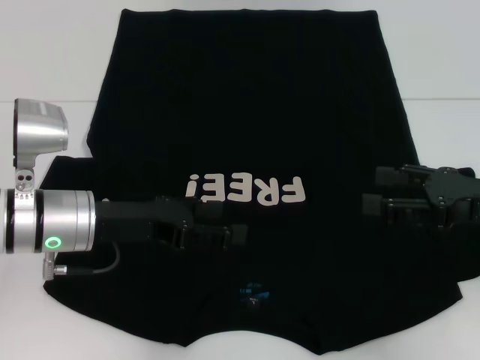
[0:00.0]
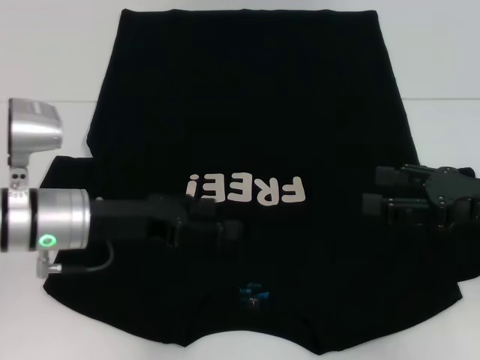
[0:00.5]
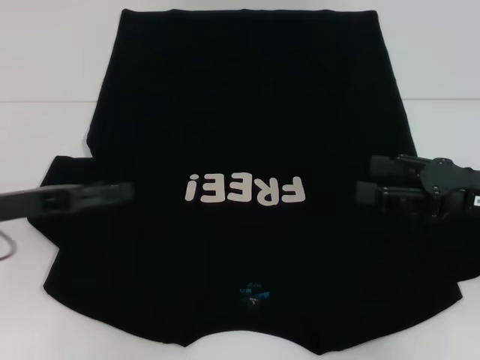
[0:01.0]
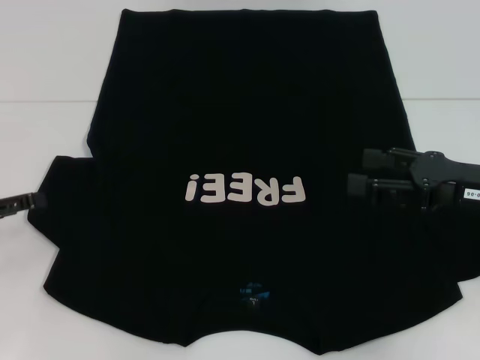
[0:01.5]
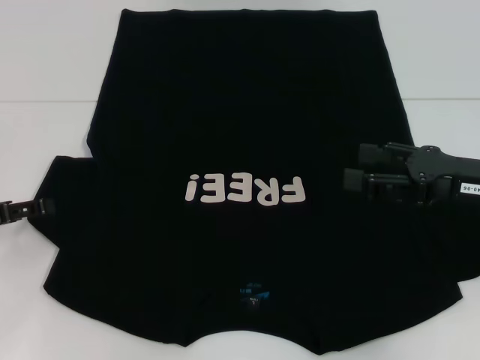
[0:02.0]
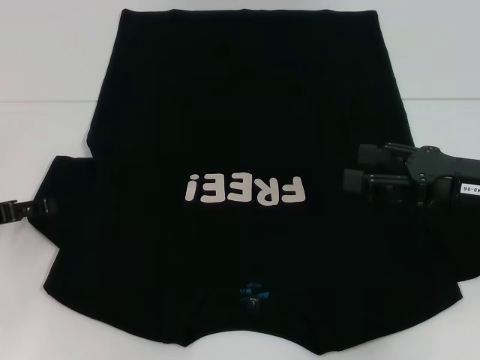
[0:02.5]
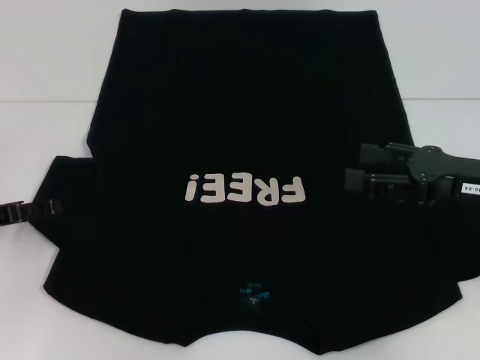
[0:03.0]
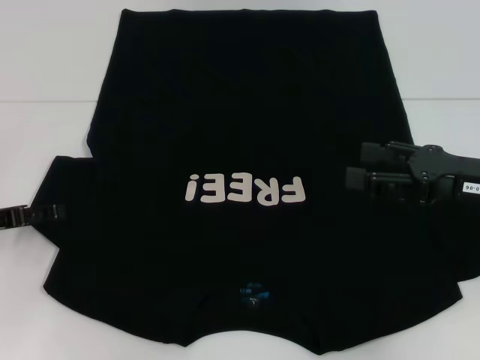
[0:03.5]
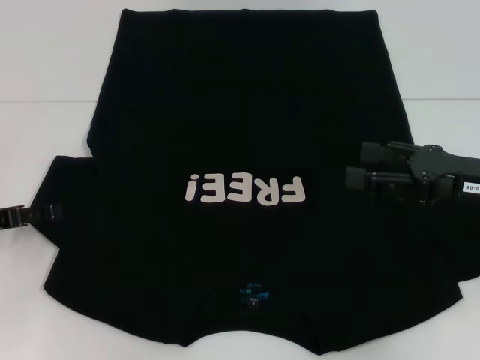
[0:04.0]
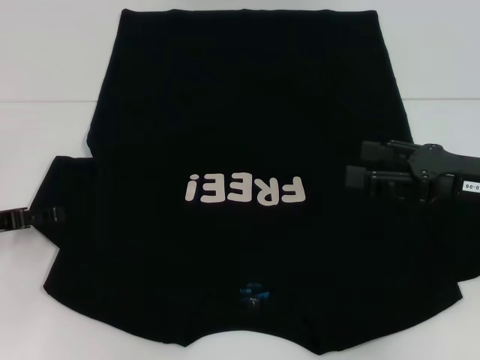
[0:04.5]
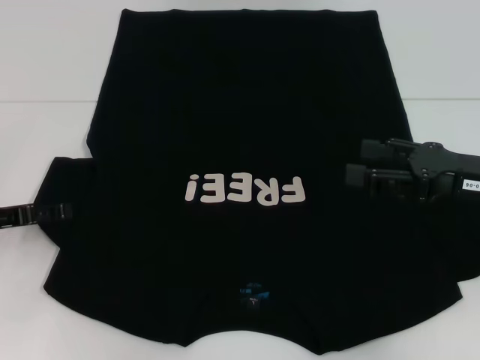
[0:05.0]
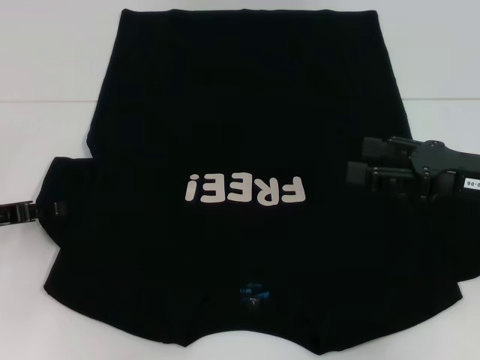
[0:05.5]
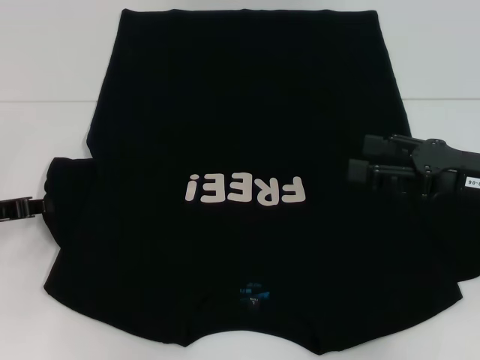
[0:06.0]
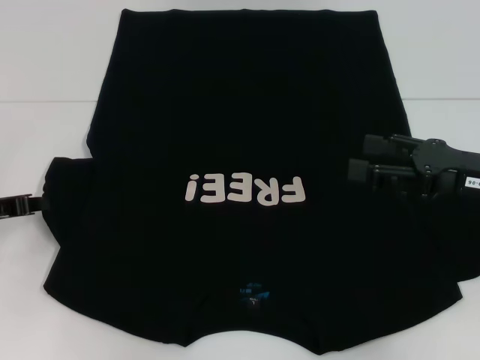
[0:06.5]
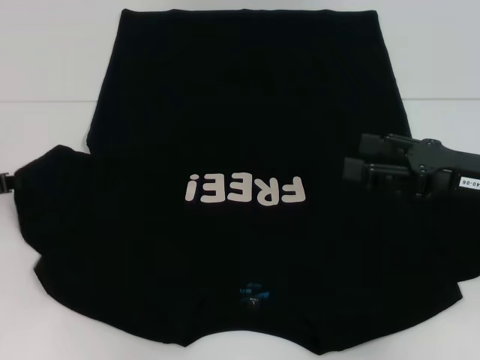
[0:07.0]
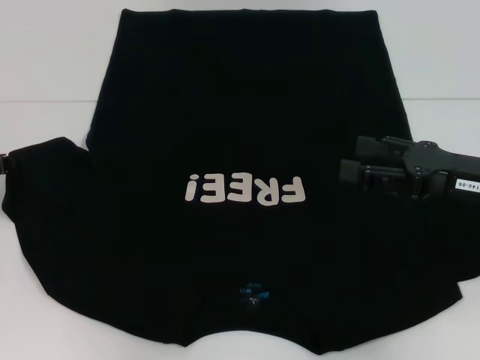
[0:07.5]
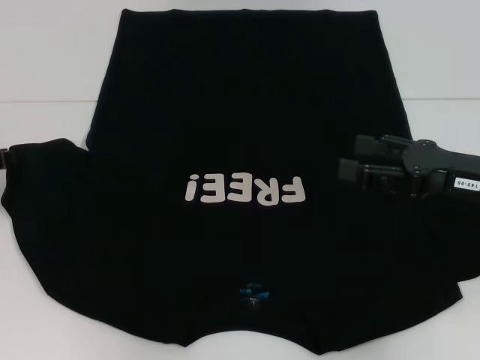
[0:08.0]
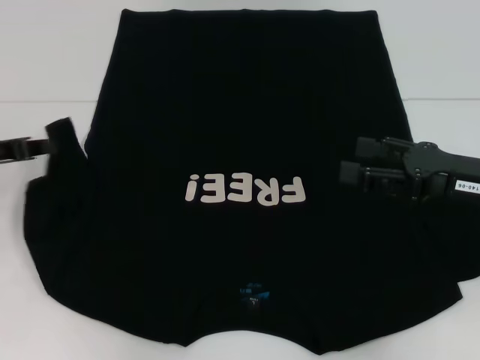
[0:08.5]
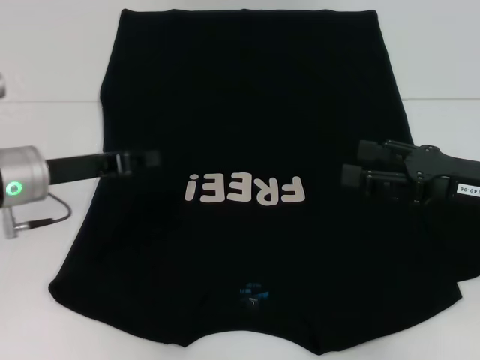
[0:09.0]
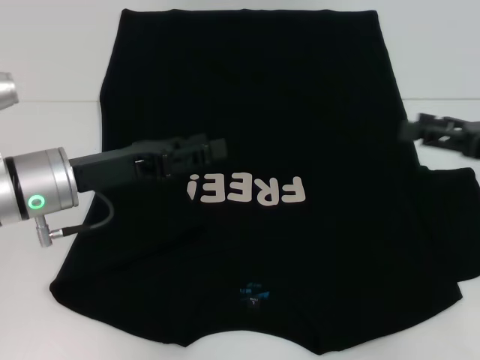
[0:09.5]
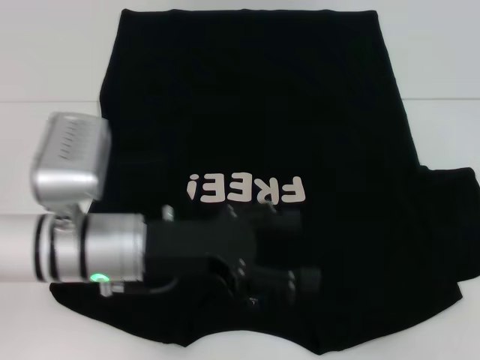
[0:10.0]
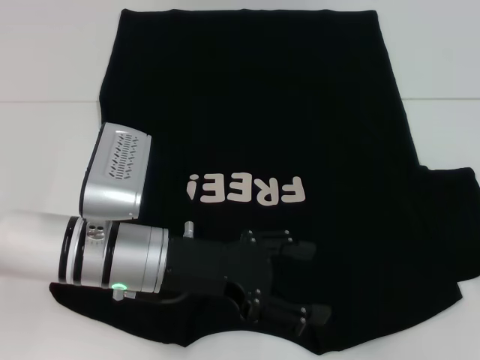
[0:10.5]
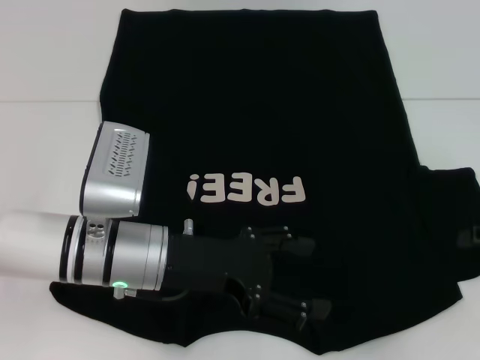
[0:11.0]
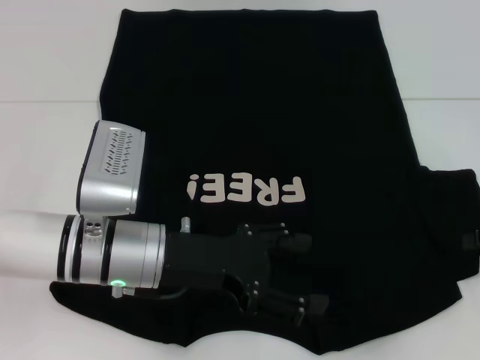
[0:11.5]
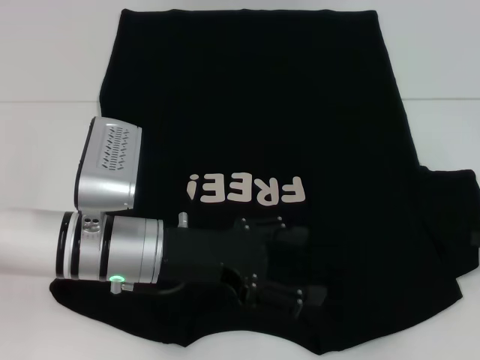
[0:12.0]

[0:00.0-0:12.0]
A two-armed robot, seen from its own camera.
Step, 0:00.0 to 0:09.0: Fold the bottom left sleeve with your left hand.
0:00.0 to 0:02.0: The left gripper is displaced to the left by roughly 15 cm.
0:04.0 to 0:06.0: The left gripper closes up.
0:06.0 to 0:08.0: The grippers make only small movements.
0:08.0 to 0:10.0: The right gripper travels to the right by roughly 15 cm, while the left gripper shifts approximately 20 cm to the right, and opens up.
0:10.0 to 0:12.0: The right gripper moves roughly 5 cm, and closes its fingers.

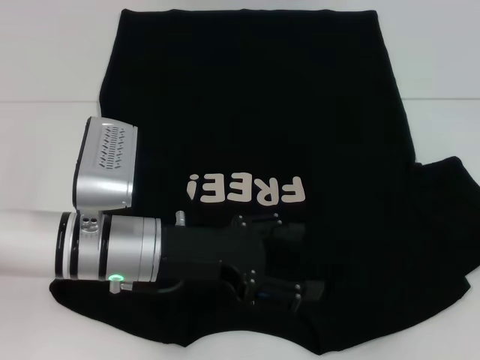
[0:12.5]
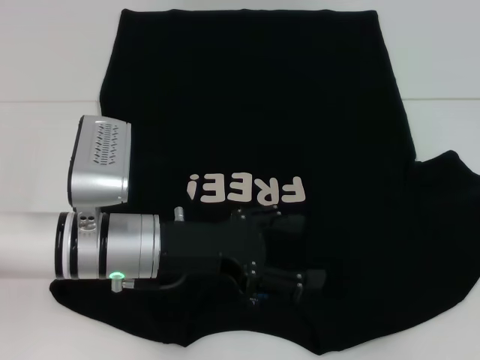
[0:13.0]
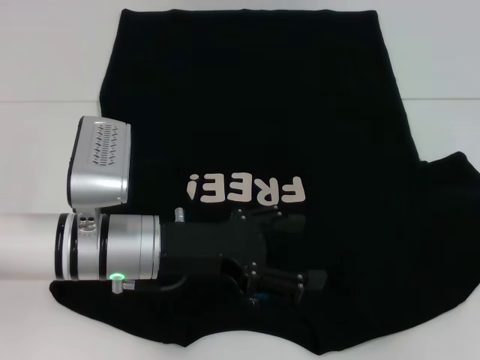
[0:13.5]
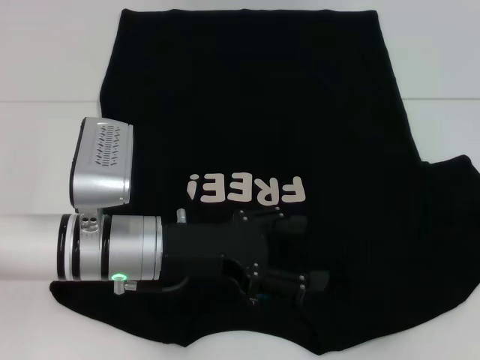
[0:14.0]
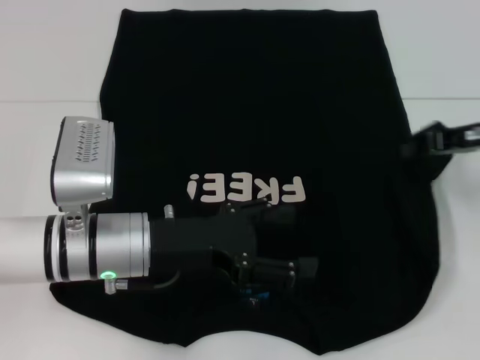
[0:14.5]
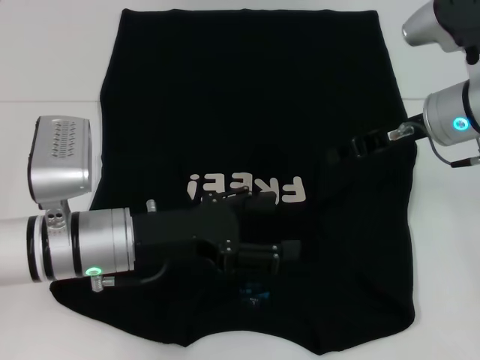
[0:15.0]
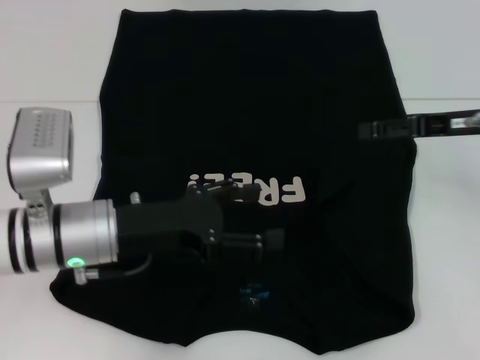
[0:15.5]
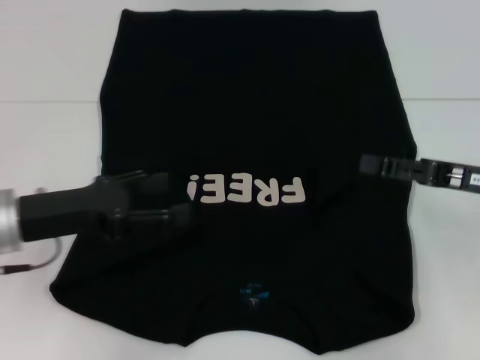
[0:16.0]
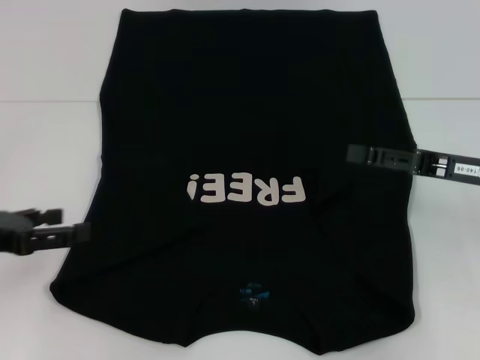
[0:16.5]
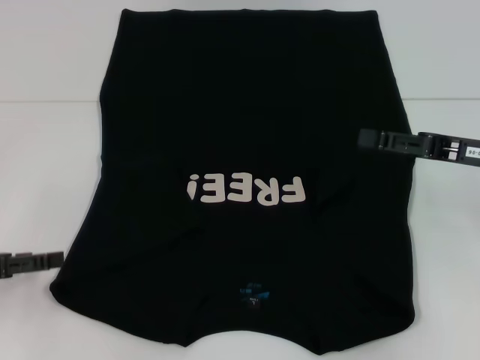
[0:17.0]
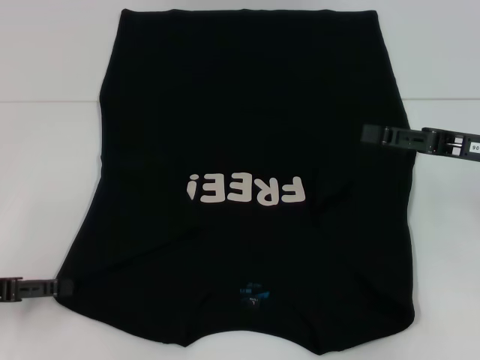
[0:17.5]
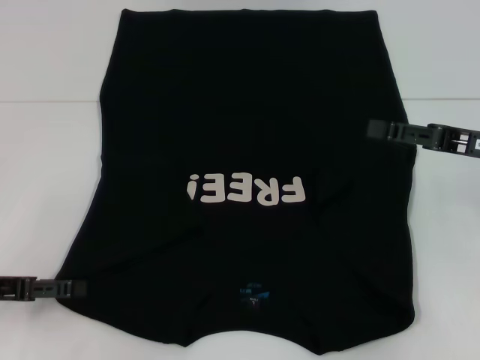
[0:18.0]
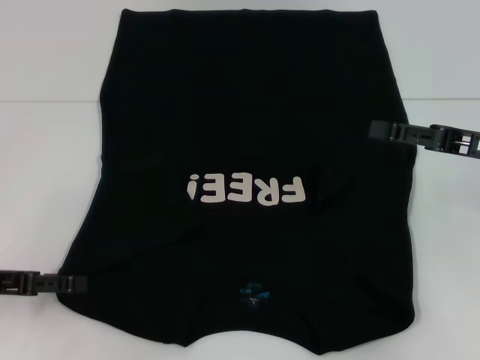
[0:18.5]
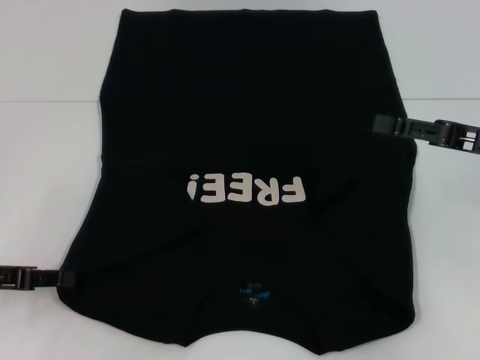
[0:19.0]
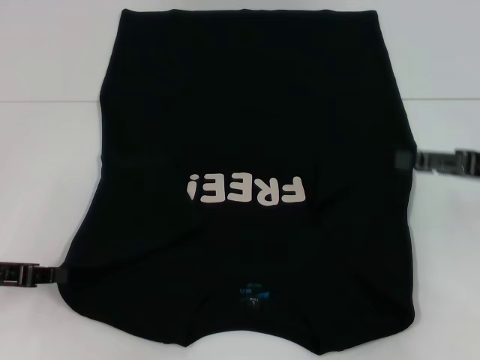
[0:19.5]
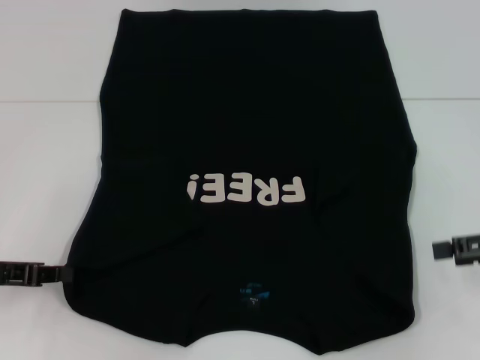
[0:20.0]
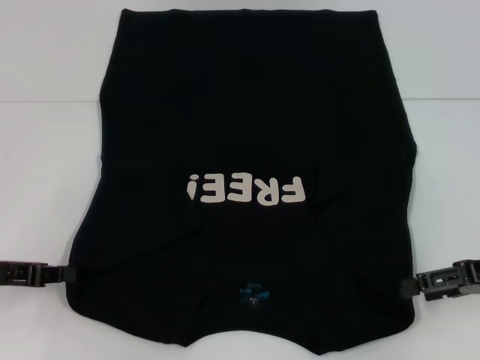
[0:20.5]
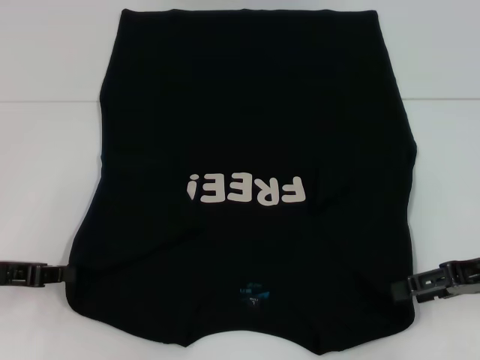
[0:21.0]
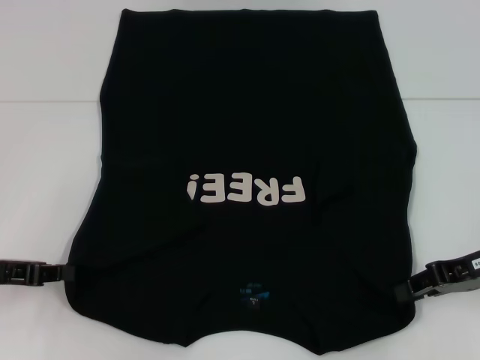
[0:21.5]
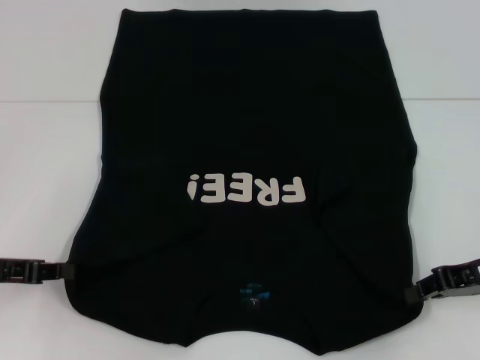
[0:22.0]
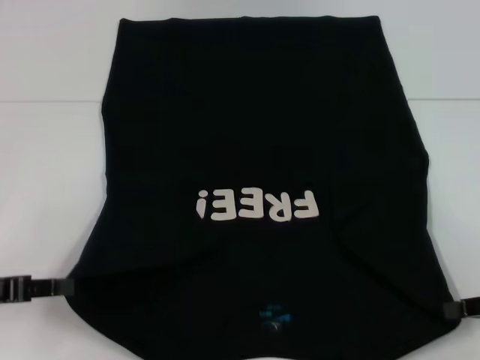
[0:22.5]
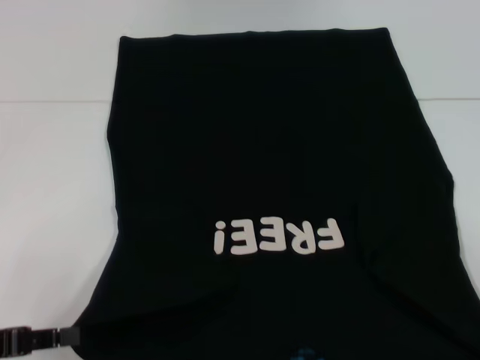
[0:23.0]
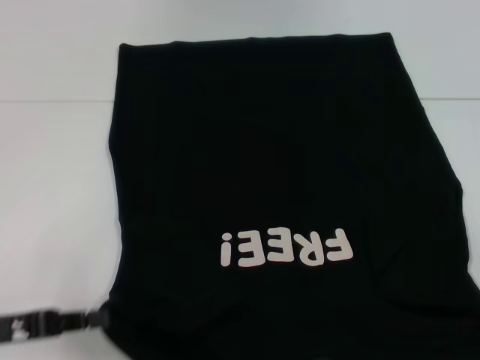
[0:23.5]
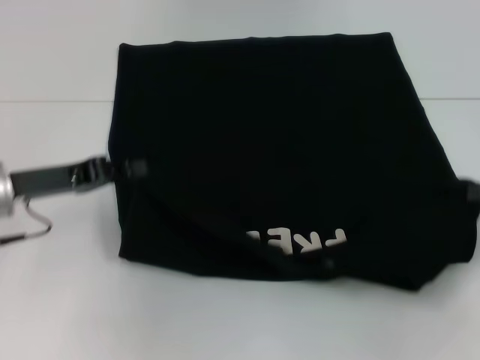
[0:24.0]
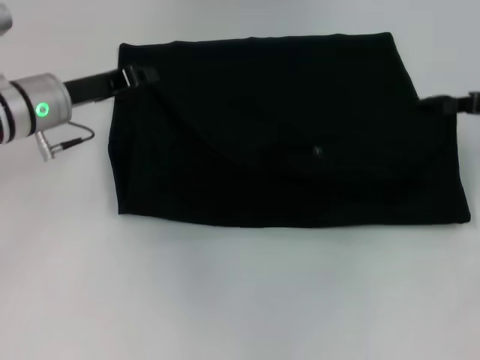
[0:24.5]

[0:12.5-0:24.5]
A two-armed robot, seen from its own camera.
Step, 0:12.5 to 0:14.5: Fold the bottom right sleeve with your right hand.
Step, 0:15.0 to 0:19.5: Grab the bottom left corner with your left hand.
Step, 0:20.0 to 0:22.0: Grab the bottom right corner with your right hand.
0:12.5 to 0:14.5: The right gripper shifts about 15 cm to the left, forward and upward.
0:14.5 to 0:16.5: The left gripper moves to the left, approximately 20 cm. The right gripper travels backward by approximately 5 cm, and opens up.
0:18.5 to 0:20.5: The left gripper closes up, while the right gripper changes place by roughly 5 cm.
0:20.5 to 0:22.5: The right gripper changes place by roughly 5 cm, and closes up.
0:22.5 to 0:24.5: The left gripper is displaced forward and to the right by some 20 cm. Meanwhile the right gripper goes approximately 15 cm forward and upward.

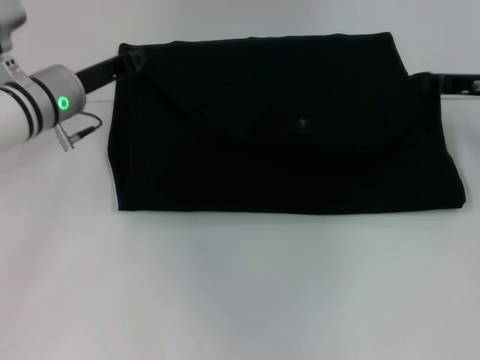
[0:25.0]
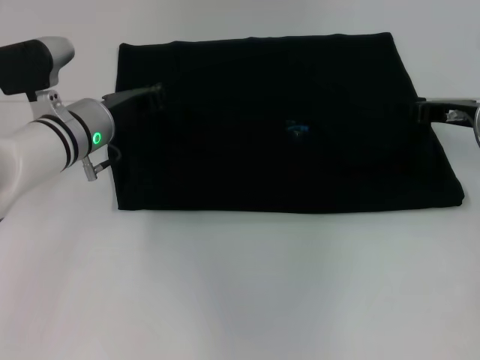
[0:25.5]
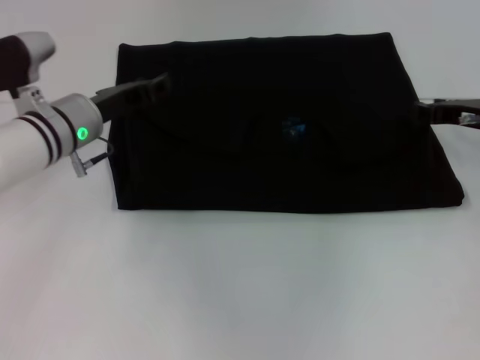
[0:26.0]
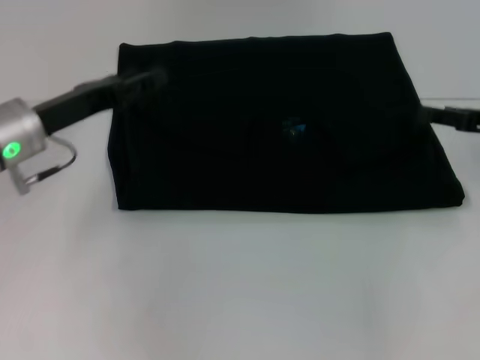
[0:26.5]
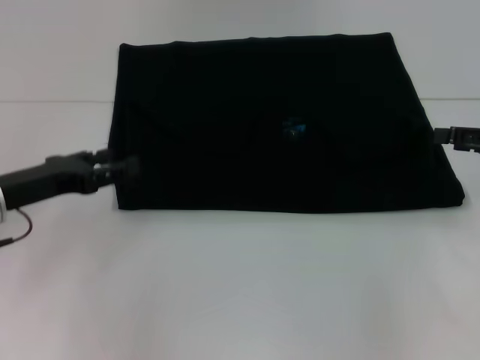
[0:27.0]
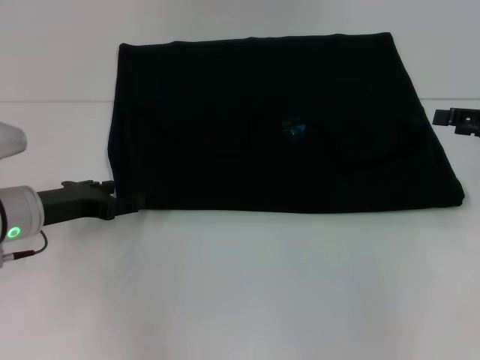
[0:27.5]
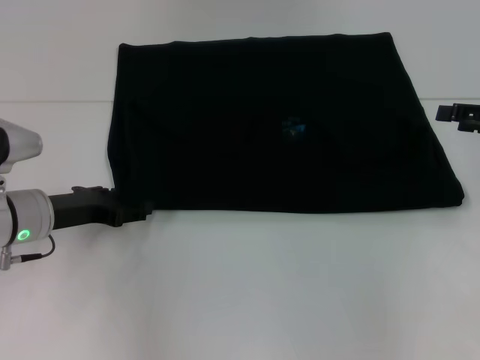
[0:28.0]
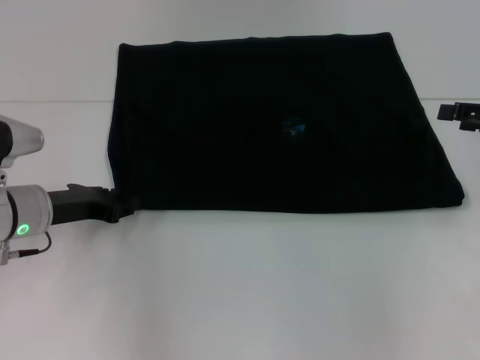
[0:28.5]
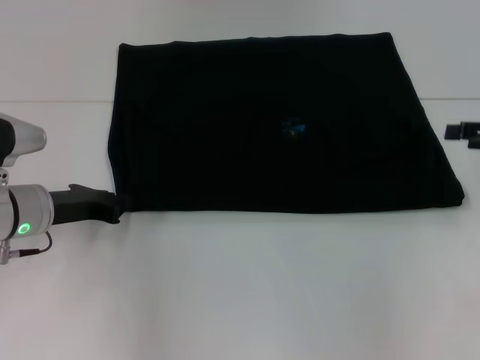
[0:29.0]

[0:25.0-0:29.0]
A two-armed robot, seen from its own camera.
0:25.0 to 0:27.0: The right gripper shifts roughly 10 cm backward and to the right, and opens up; the left gripper shifts about 15 cm backward and to the left, and opens.
0:27.0 to 0:29.0: The left gripper moves about 5 cm, and closes up.
